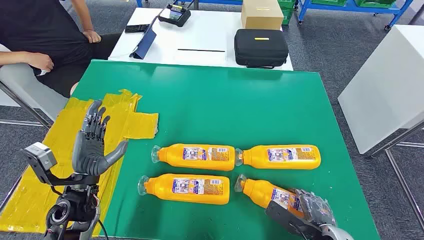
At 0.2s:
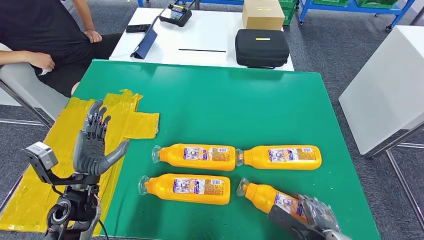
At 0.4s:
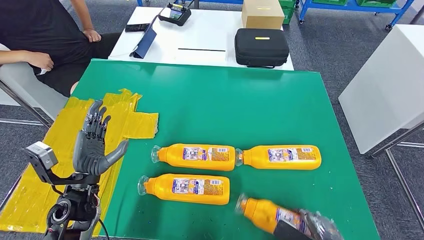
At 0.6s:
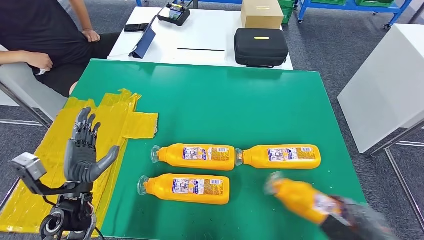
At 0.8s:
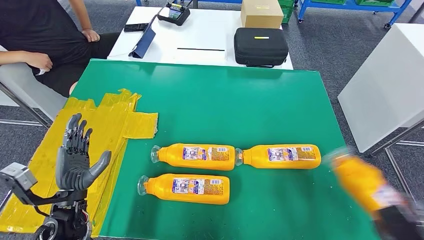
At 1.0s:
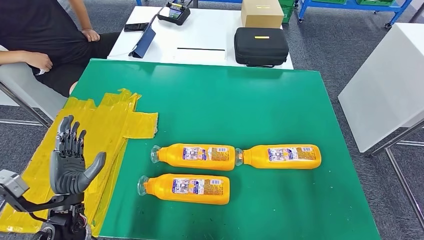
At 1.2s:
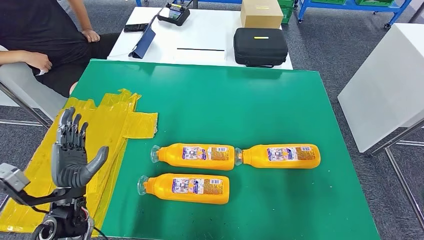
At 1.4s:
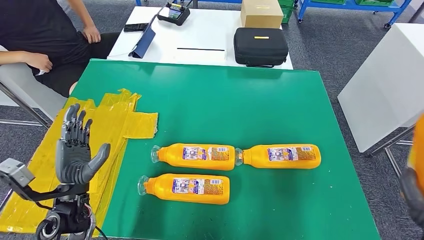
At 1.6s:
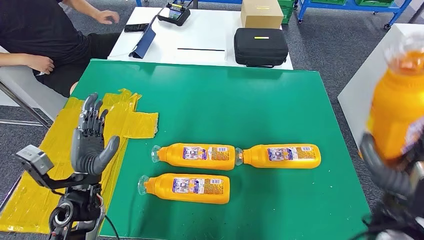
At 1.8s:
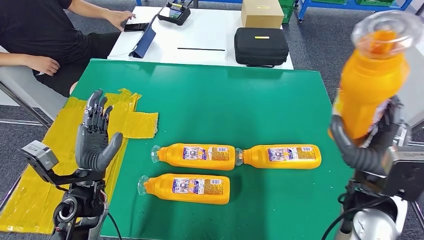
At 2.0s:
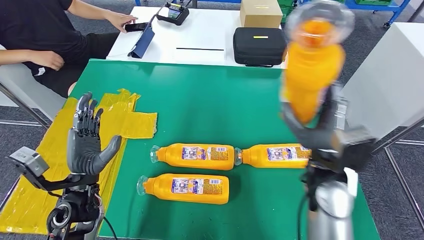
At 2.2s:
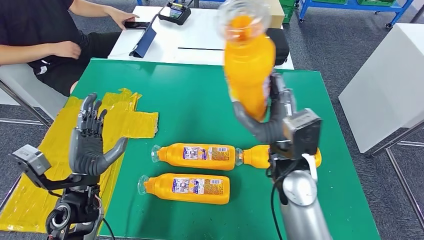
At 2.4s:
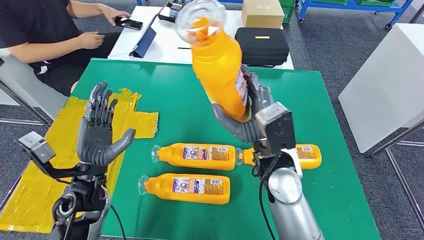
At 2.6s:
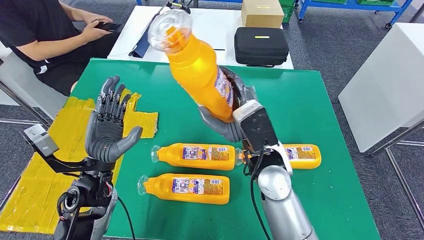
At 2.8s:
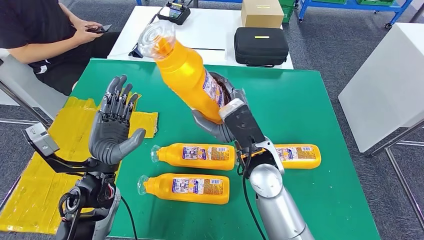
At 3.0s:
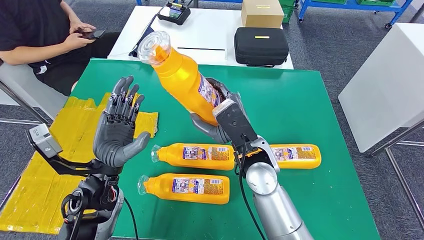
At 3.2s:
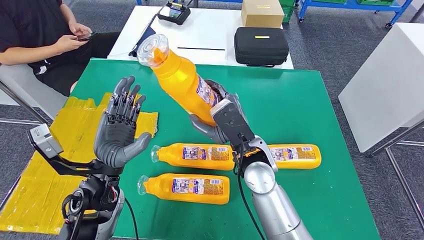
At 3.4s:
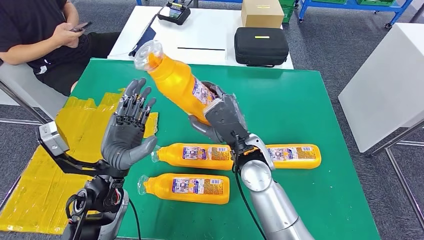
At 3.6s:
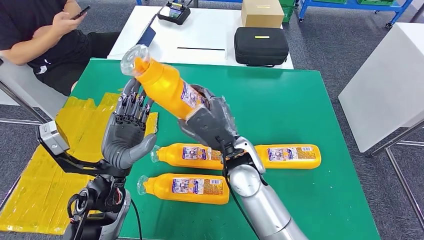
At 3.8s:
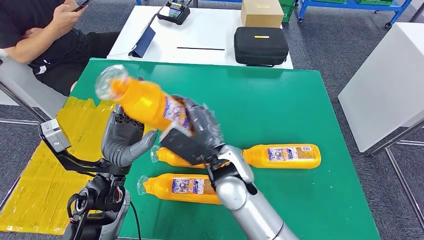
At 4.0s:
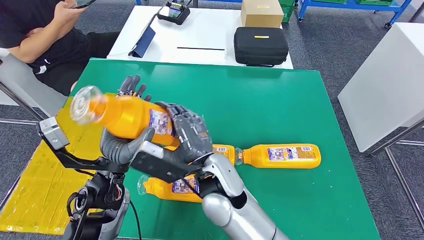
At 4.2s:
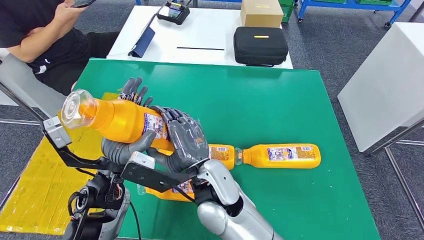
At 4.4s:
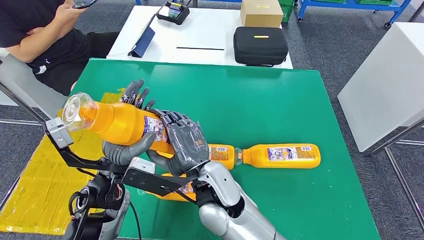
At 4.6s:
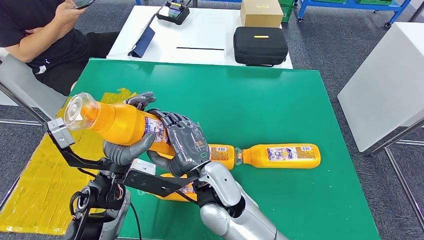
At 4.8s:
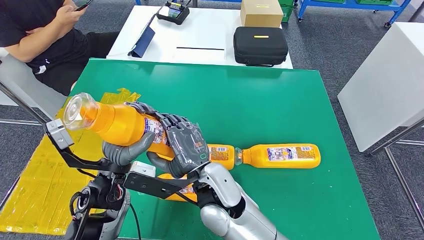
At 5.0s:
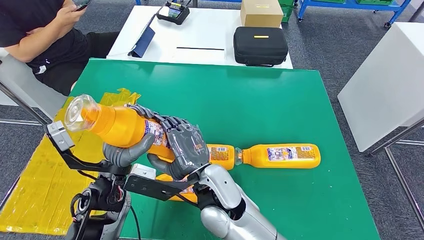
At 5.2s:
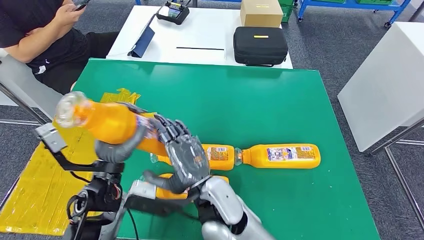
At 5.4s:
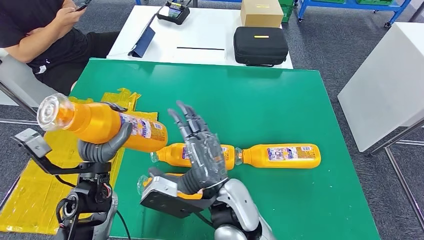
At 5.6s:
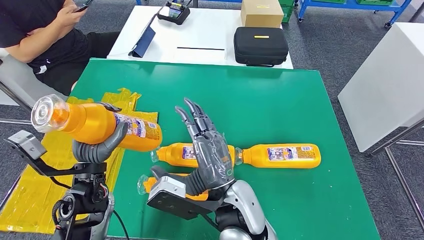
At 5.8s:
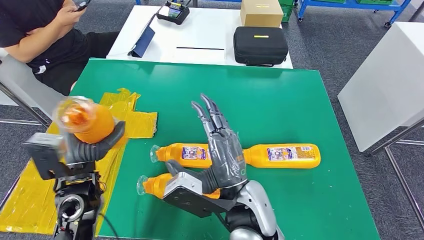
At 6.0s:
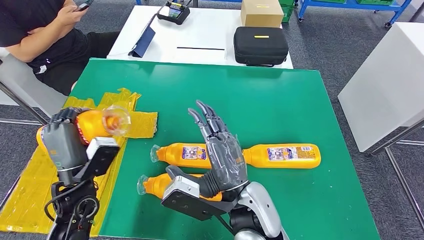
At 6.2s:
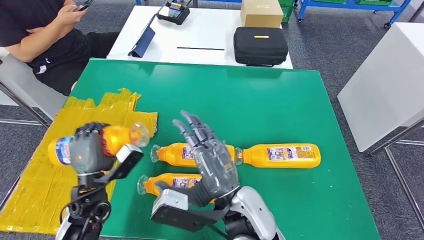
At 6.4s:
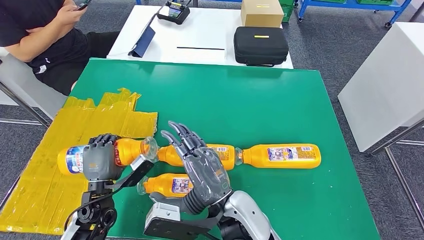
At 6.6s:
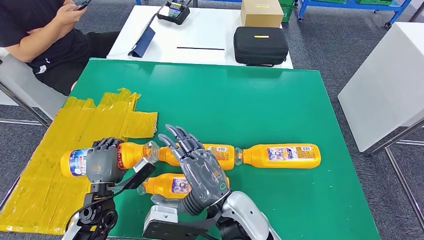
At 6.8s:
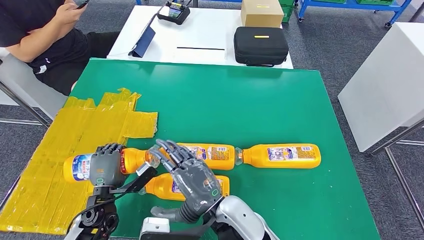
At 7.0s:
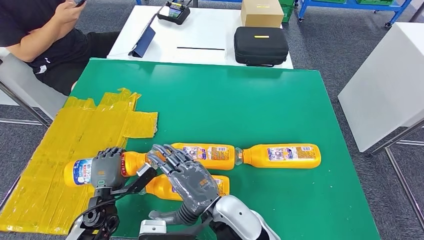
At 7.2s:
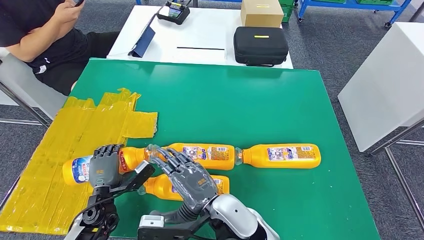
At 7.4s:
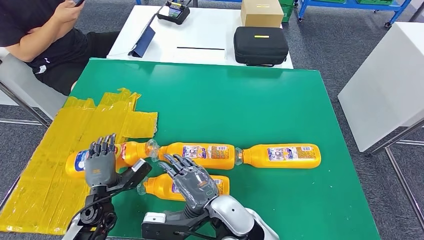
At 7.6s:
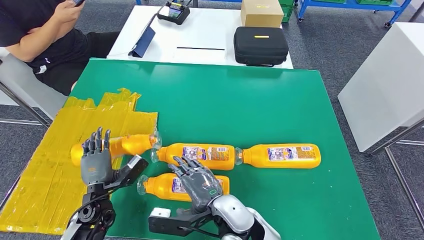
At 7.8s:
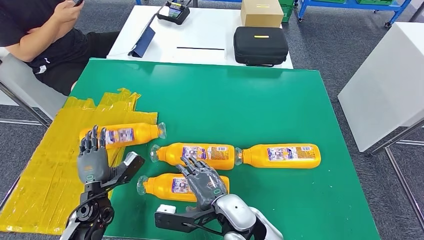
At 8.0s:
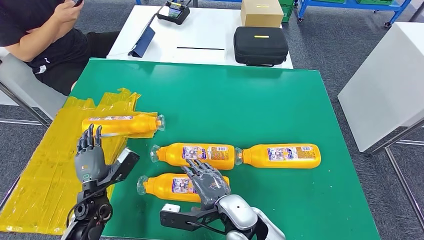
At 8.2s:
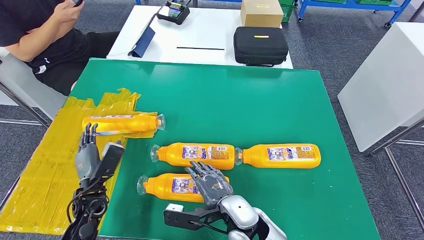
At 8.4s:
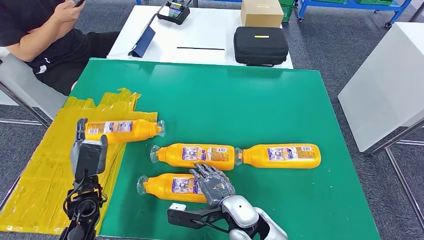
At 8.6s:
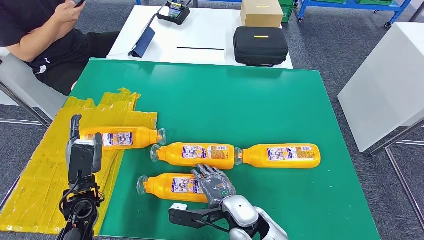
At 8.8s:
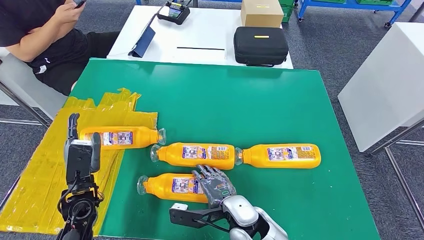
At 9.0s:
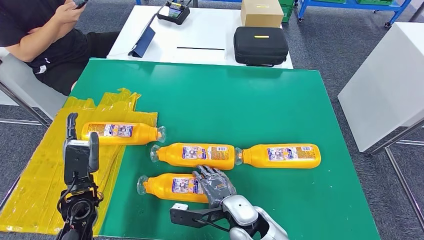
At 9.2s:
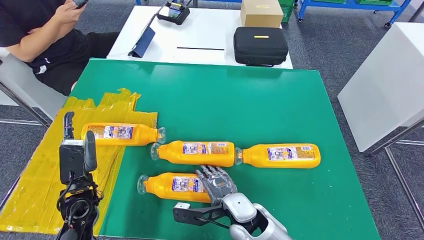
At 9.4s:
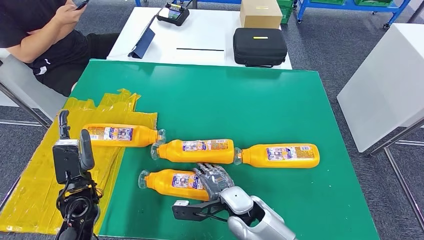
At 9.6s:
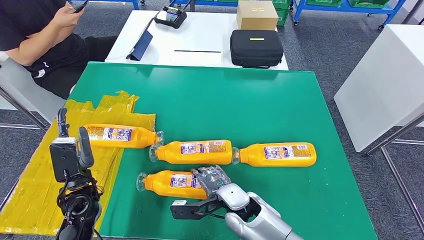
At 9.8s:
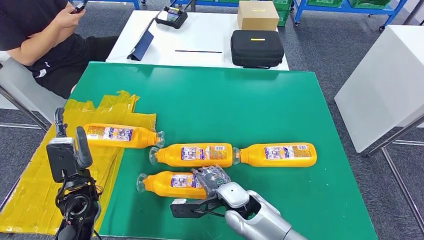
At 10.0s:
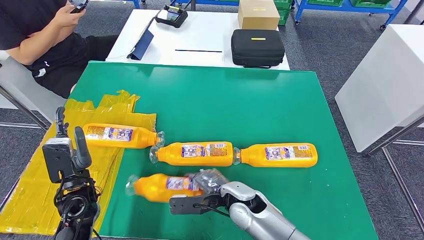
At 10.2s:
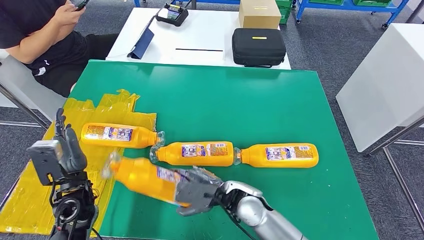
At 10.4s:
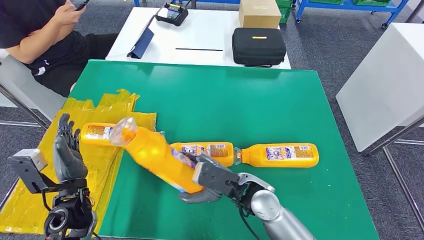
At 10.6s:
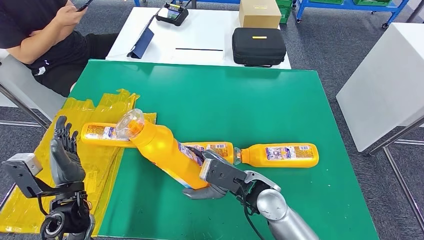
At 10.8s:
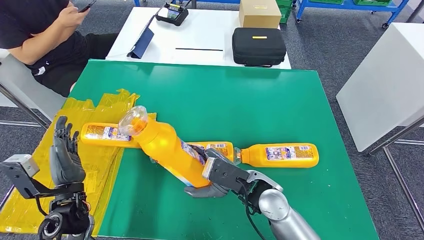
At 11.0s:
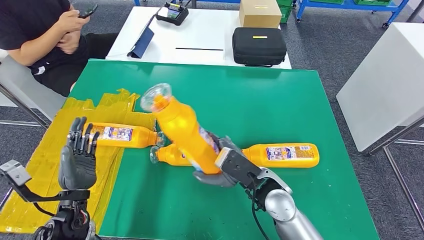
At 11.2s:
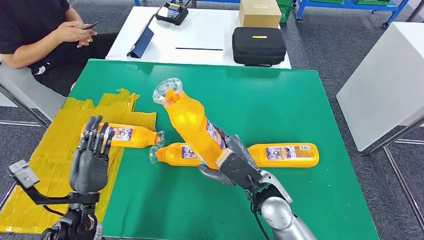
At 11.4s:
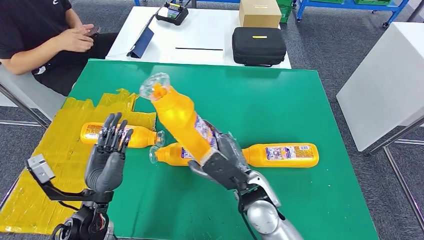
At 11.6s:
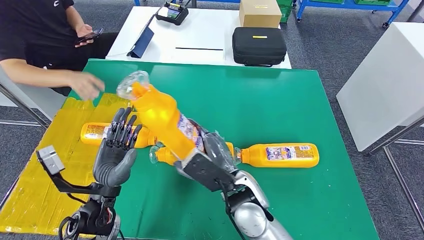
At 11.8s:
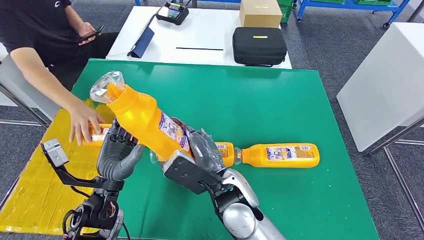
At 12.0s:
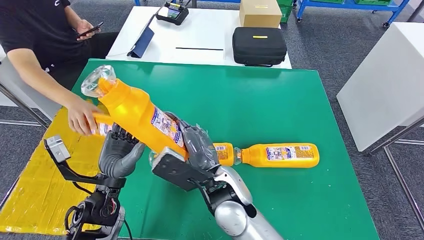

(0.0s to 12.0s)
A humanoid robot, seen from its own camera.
Step, 0.0s - 1.8s: Take the fast-moving consumer goods bottle from the table.
Step, 3.8s - 7.8s: Flip the fast-moving consumer goods bottle to the front side.
Step, 10.0s - 12.0s: Pick up the fast-moving consumer goods bottle from the table.
6.0s - 7.6s: The right hand shifts some 10 cm downward; the left hand goes roughly 15 cm downward.
7.6s - 9.0s: The left hand shifts approximately 5 cm upward. Meanwhile the right hand goes approximately 5 cm downward.

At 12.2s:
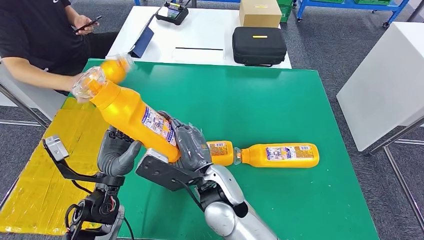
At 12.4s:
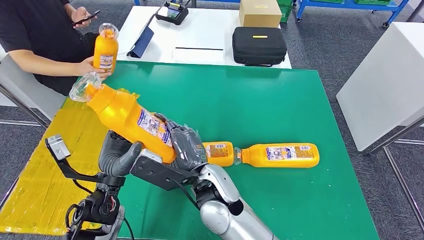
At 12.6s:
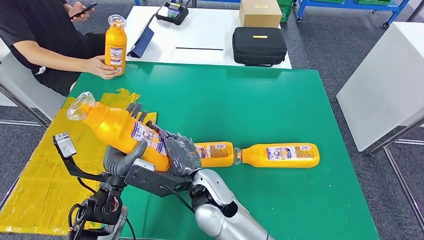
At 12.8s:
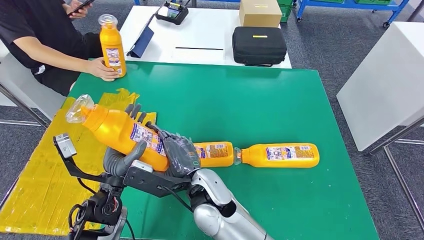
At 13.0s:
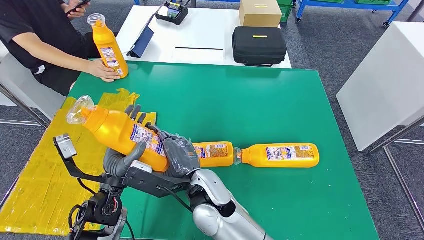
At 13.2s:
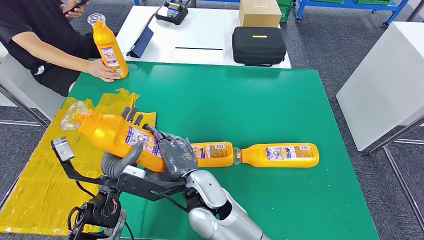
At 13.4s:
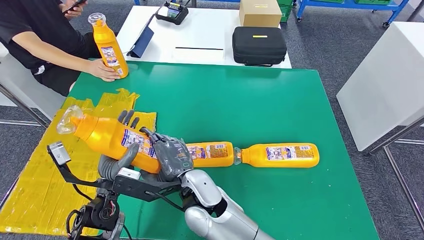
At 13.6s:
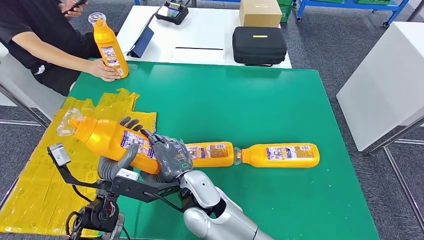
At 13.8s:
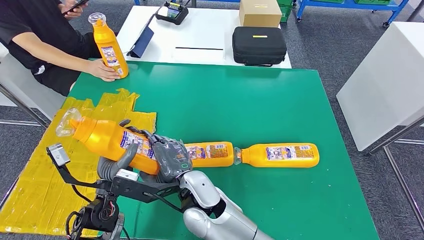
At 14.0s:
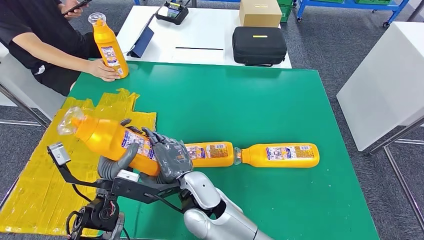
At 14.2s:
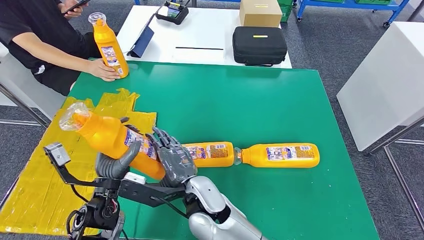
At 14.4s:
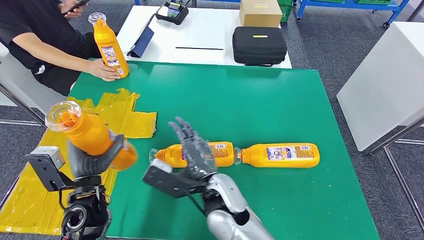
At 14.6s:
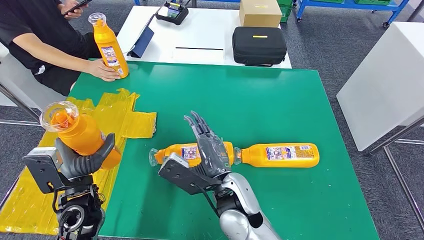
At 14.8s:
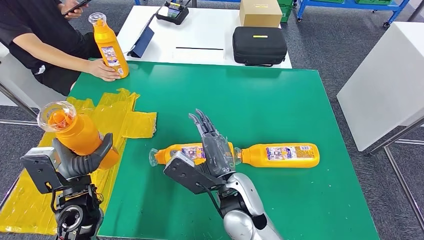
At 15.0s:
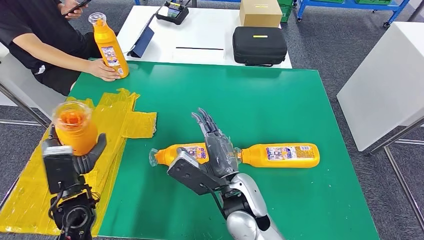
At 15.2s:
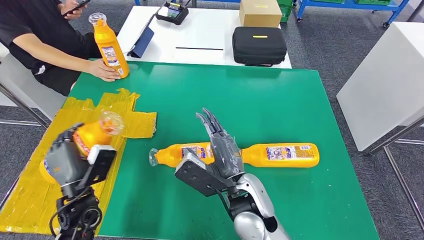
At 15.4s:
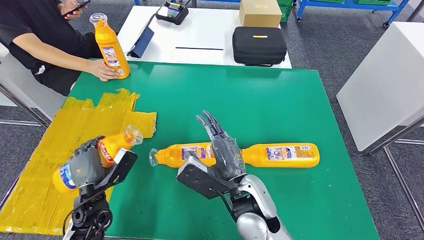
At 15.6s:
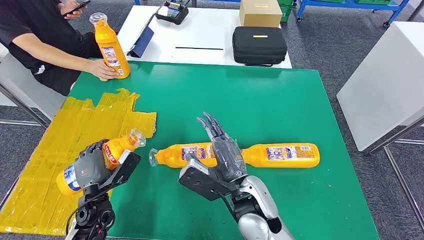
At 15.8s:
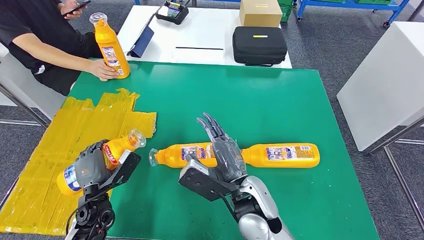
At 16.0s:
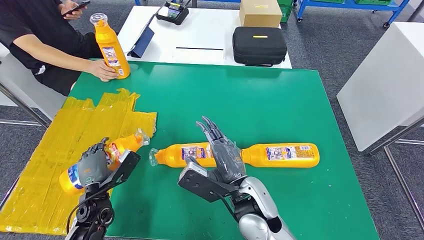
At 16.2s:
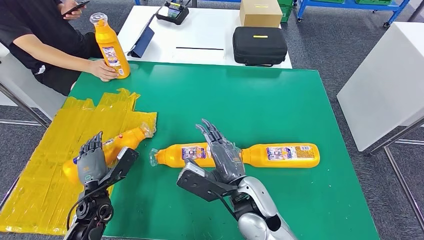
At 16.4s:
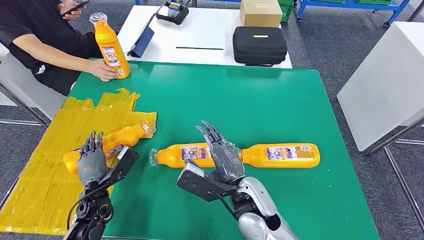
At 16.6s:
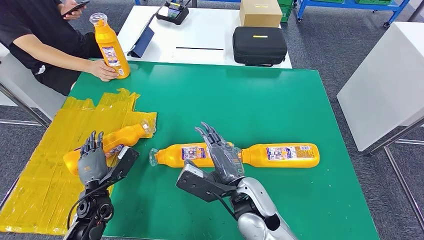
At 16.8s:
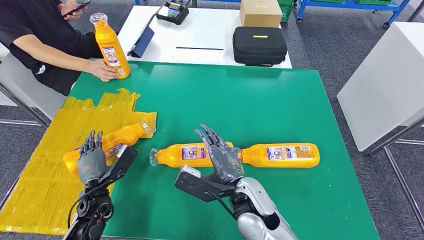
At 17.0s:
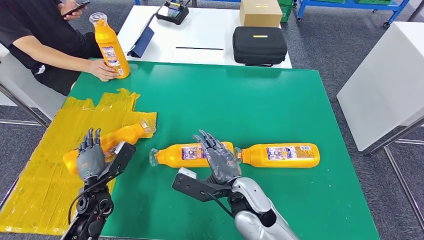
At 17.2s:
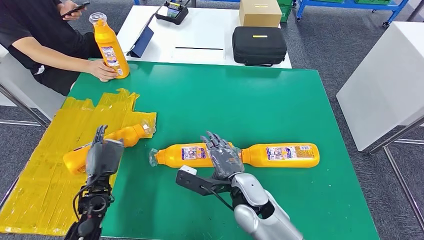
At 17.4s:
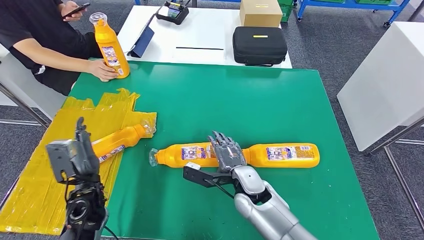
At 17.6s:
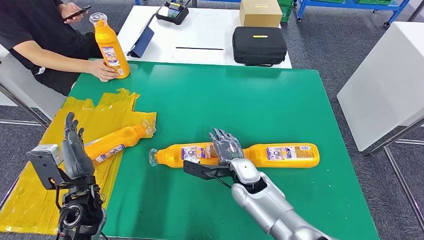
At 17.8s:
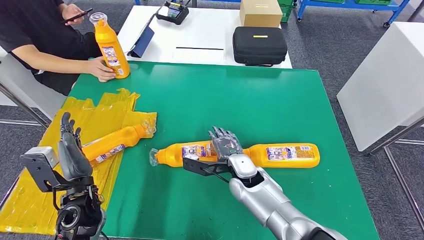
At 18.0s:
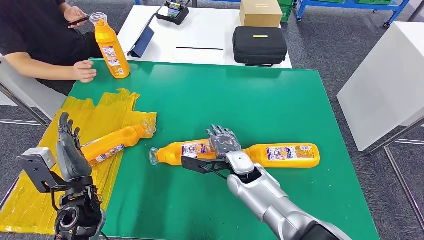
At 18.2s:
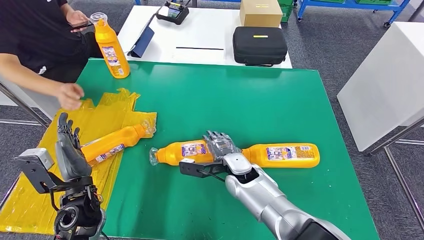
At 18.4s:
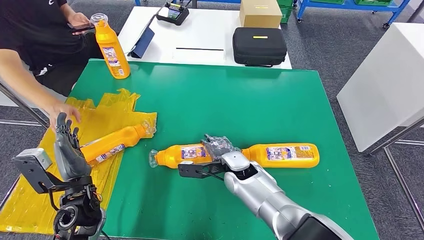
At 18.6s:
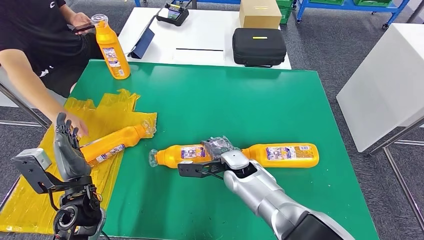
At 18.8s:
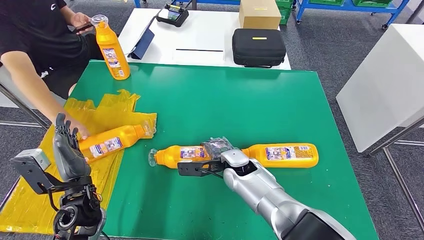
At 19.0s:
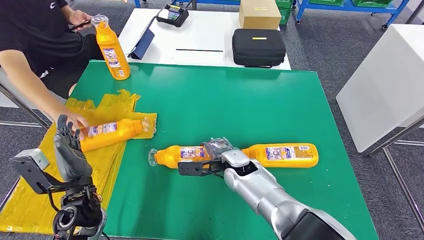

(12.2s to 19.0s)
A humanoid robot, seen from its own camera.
Step, 12.8s - 16.6s: Flip the fast-moving consumer goods bottle to the front side.
13.6s - 15.0s: The right hand moves to the right, approximately 10 cm; the left hand is displaced to the left by about 5 cm.
15.0s - 16.2s: The left hand travels downward by roughly 10 cm.
16.2s - 17.6s: The right hand travels downward and forward by roughly 10 cm. Meanwhile the left hand travels upward by some 10 cm.
